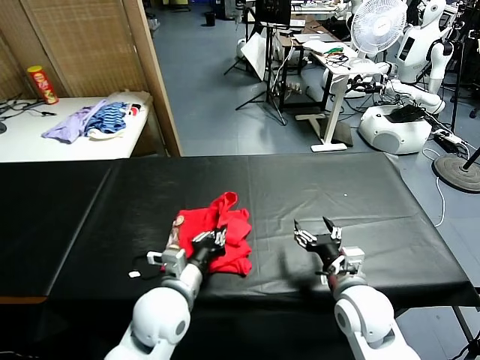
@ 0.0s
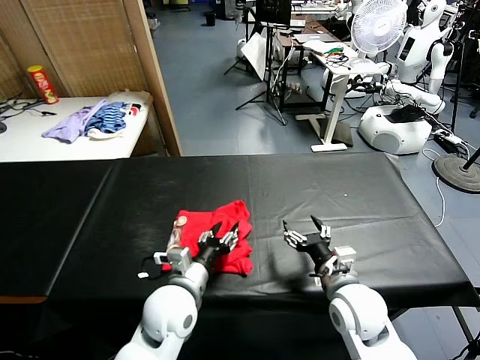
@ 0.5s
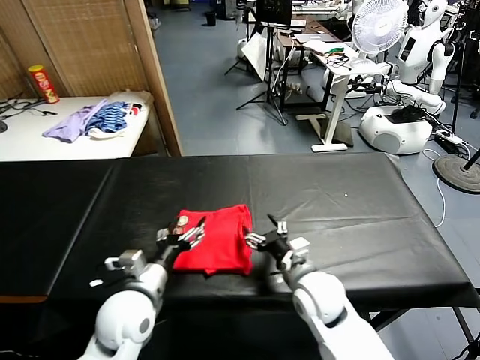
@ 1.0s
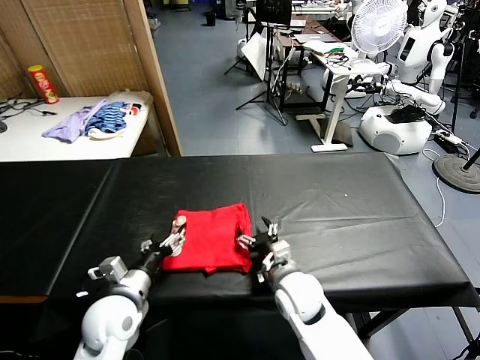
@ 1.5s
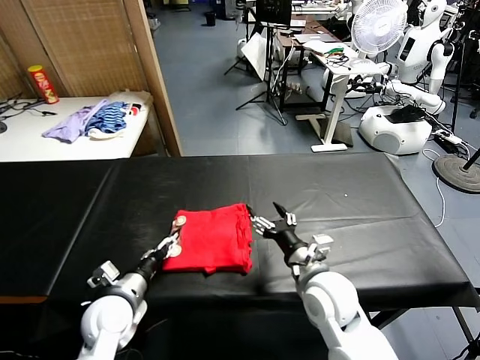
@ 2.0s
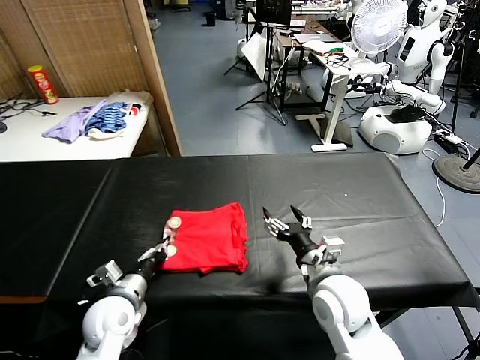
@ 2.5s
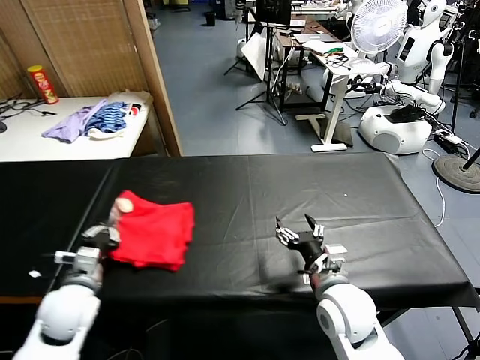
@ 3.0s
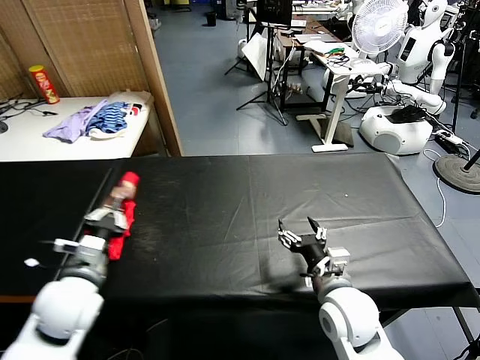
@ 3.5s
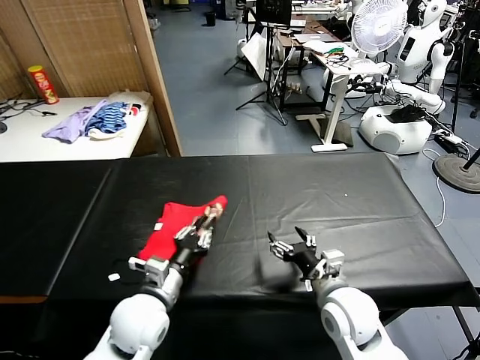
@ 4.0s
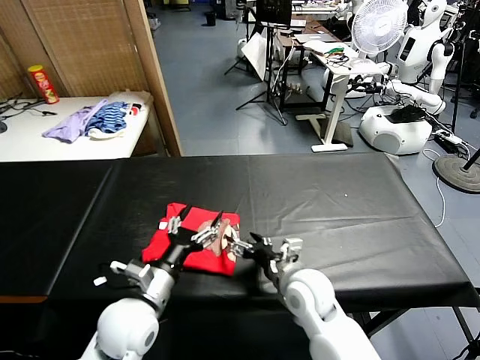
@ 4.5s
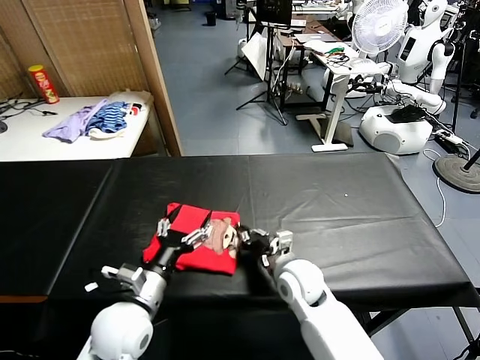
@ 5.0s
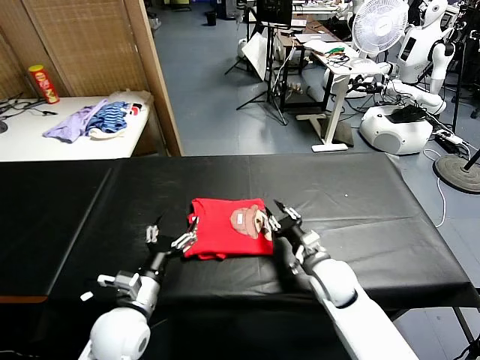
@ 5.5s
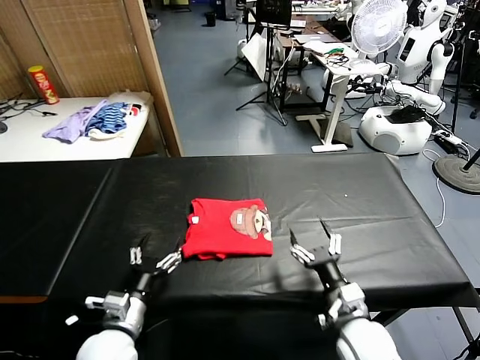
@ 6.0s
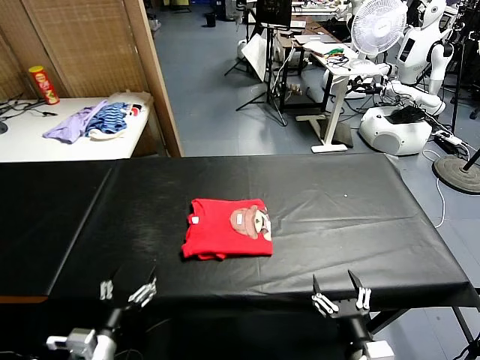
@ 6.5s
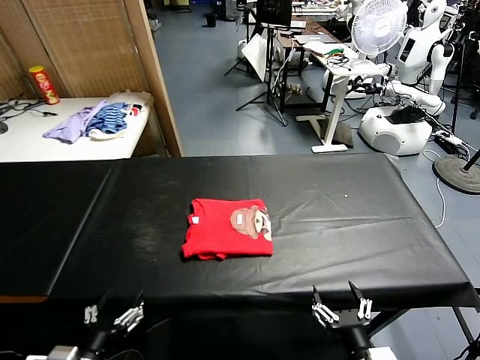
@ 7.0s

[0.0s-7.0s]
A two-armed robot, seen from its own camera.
Task of the whole recording: fold and organize the clothes.
Step, 1.0s to 4.0s: Flip the folded clothes over with left gripper.
Step, 4.5s to 5.5s: Drag the clothes to the center of the table.
0.0s to 2.0s: The left gripper goes about 15 cm to the left and downward, and opens its fingers; the right gripper shifts approximately 5 cm to the left.
2.0s to 3.5s: The left gripper travels upward by some 10 cm, and closes its fingers.
3.5s to 5.0s: The right gripper goes about 15 cm forward, to the left and downward, and closes its fingers, while the left gripper shifts about 10 cm to the right, and opens its fingers.
5.0s to 7.0s: The left gripper heads backward and to the left, covering roughly 15 cm. Meanwhile the right gripper shifts roughly 25 cm backward, and opens up.

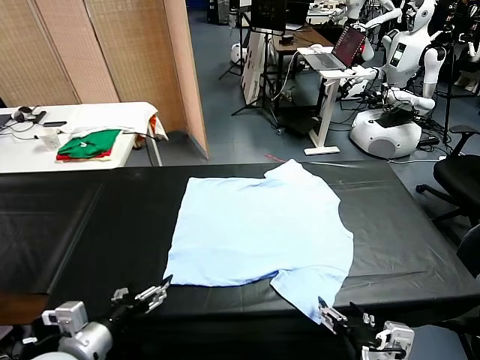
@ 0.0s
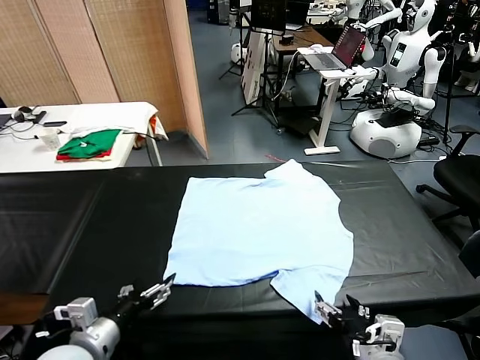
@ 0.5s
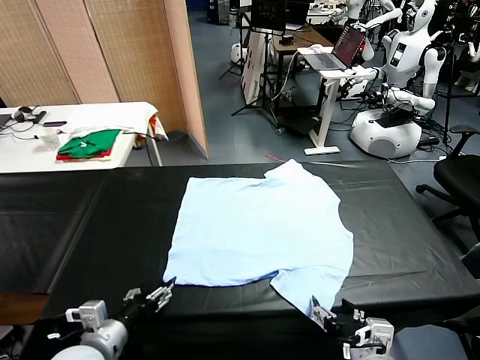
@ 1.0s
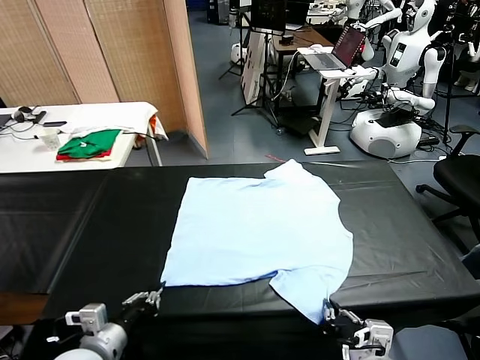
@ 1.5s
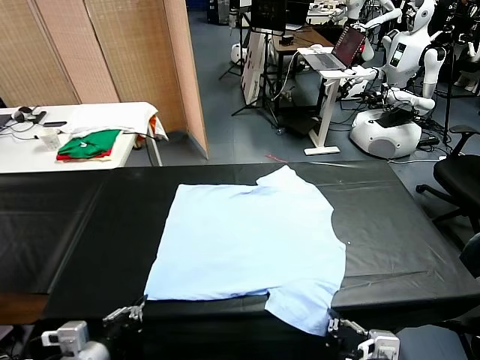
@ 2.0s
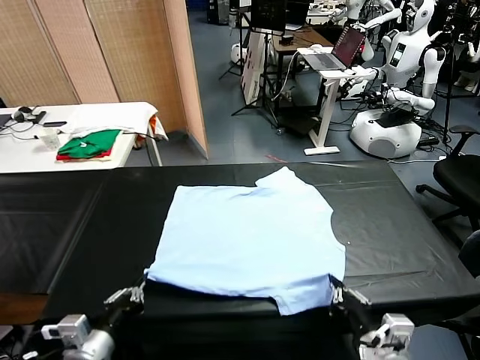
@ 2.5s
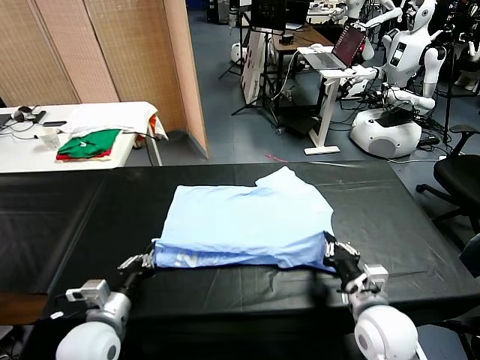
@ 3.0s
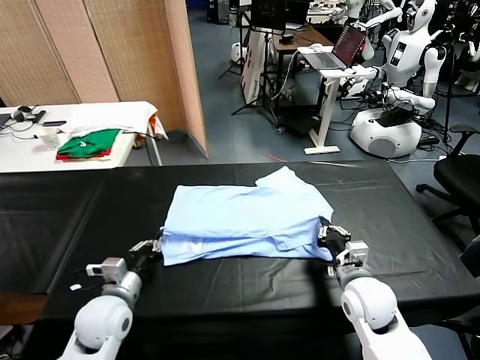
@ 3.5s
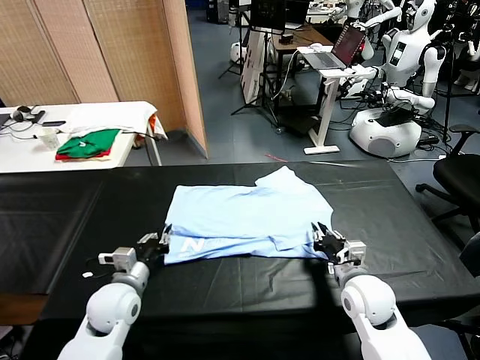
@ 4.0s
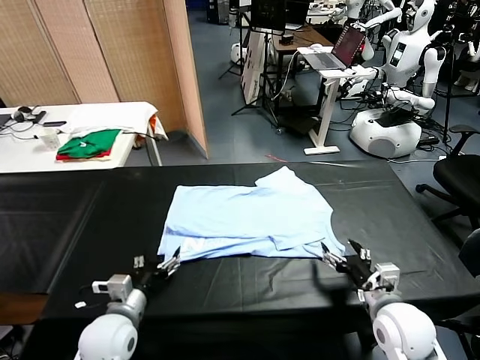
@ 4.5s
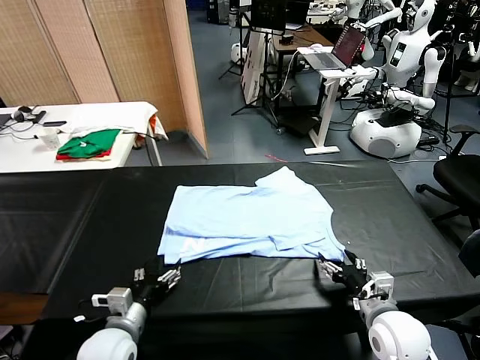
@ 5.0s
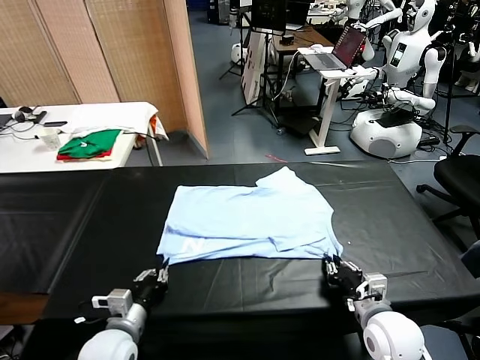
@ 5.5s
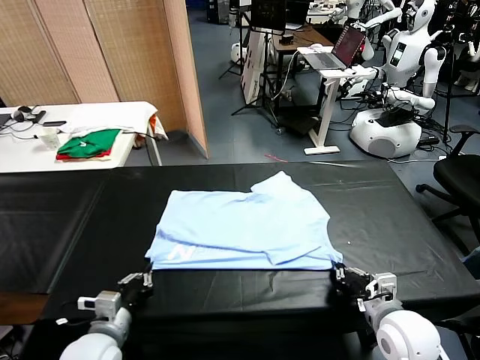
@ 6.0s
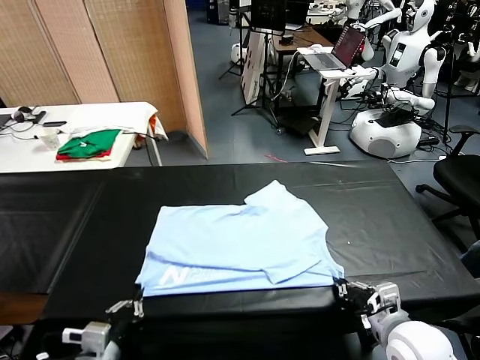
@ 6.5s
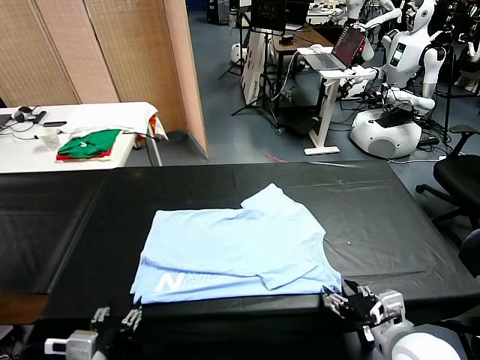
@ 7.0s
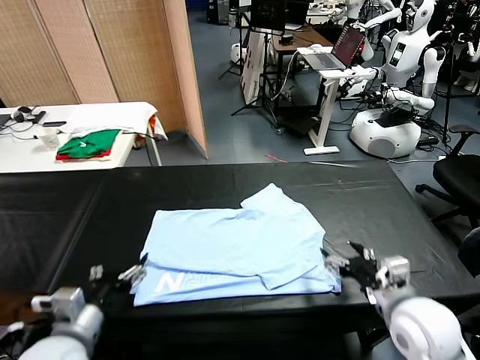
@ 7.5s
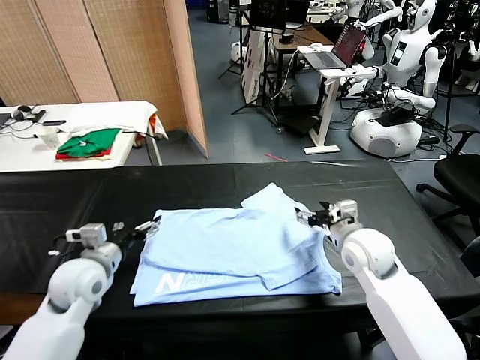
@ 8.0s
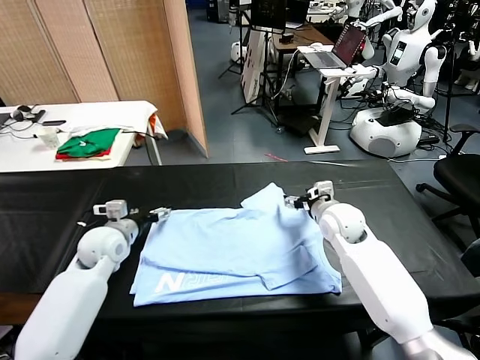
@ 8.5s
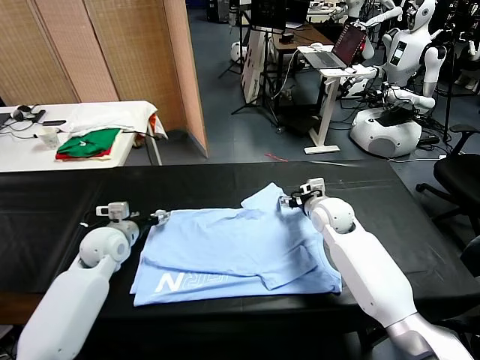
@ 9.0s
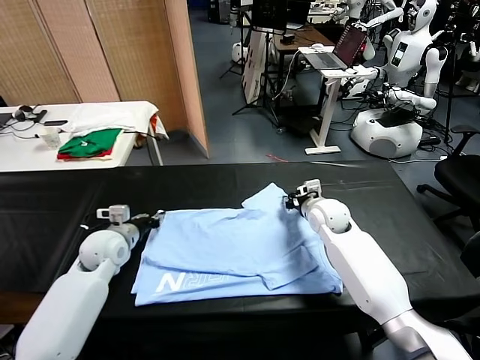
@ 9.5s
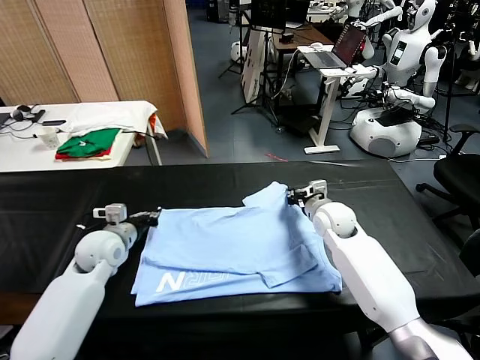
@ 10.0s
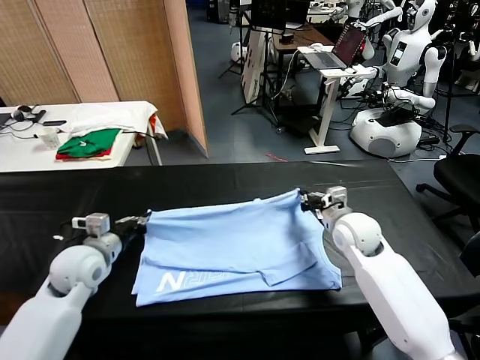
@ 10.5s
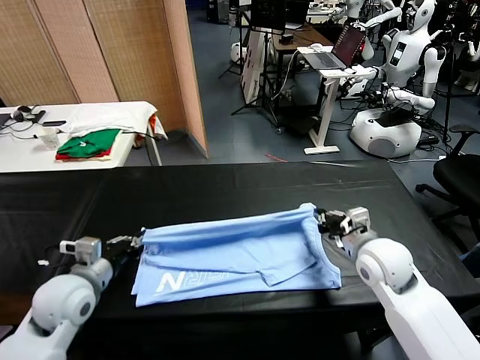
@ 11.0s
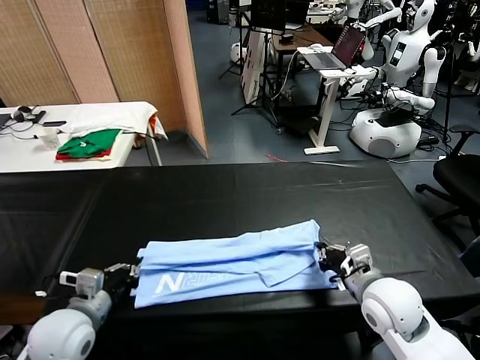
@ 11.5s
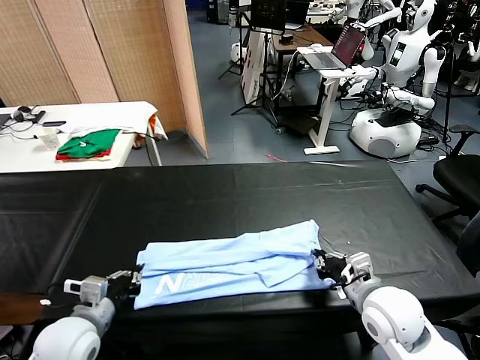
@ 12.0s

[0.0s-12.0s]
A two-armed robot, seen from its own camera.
Task of the whole recording: fold and organize the clothes.
Step, 0.0s to 1.5s: use both grippers simultaneously to clamp the lower edge of the clothing fabric.
Step, 2.0s to 4.0s: use both grippers to drag the lower edge of the fabric forward and fold it over the upper edge.
Step, 4.5s to 7.0s: Drag the clothes downward with both gripper.
Step, 7.5s to 9.5s: use both grippers simultaneously to clamp the upper edge of the clothing fabric.
2.0s to 4.0s: The two grippers go approximately 15 cm forward. The left gripper opens its fingers, while the right gripper opens its fingers.
4.0s to 6.0s: The right gripper moves backward, about 5 cm, and closes its fingers; the left gripper travels backward by approximately 10 cm, and closes up.
6.0s to 8.0s: Both grippers move forward, approximately 15 cm. The left gripper opens up; the right gripper opens up.
8.0s to 10.0s: Both grippers travel together forward, some 5 cm. The left gripper closes up, while the right gripper closes.
10.0s to 12.0s: Both grippers move backward, about 20 cm. The right gripper opens its fingers.

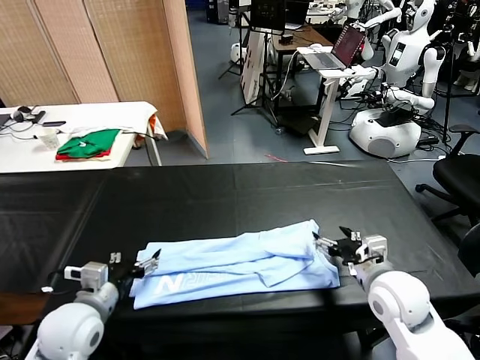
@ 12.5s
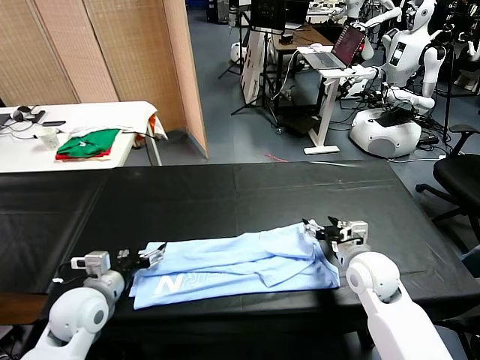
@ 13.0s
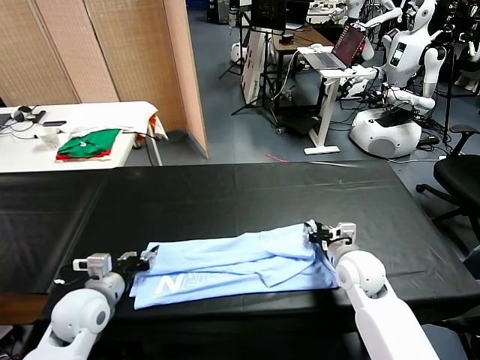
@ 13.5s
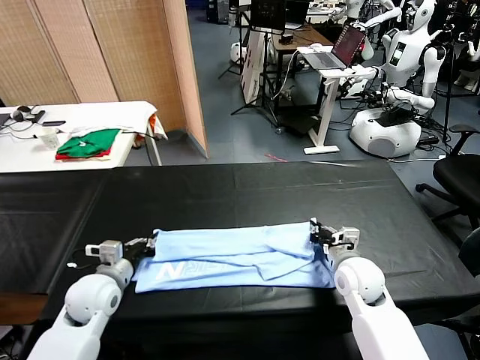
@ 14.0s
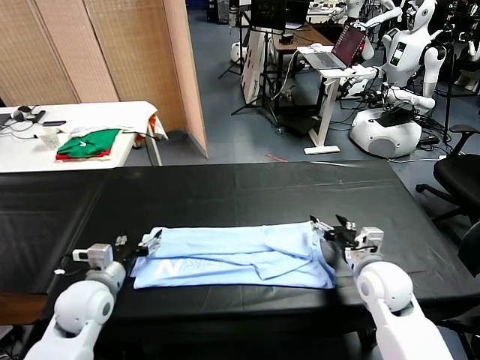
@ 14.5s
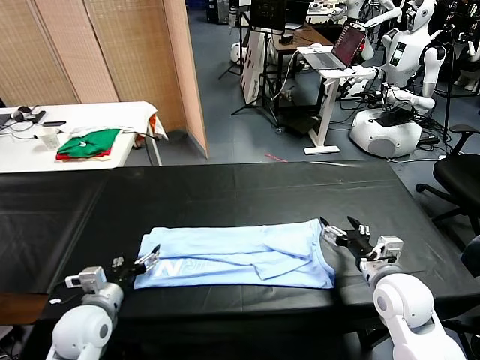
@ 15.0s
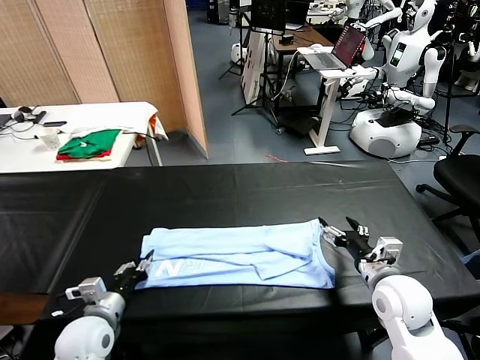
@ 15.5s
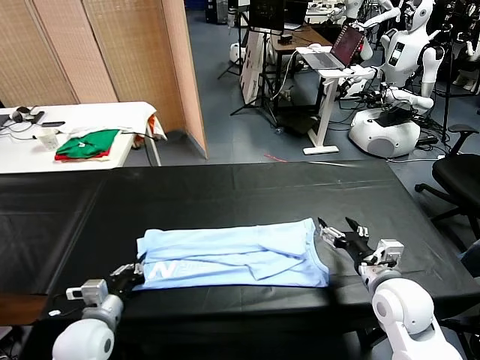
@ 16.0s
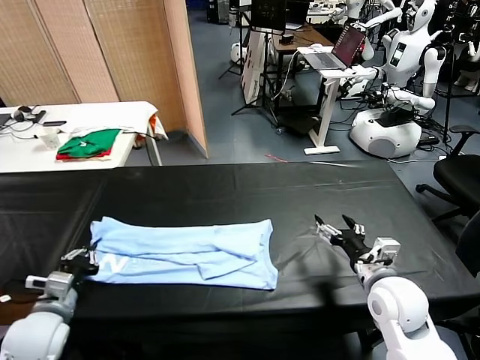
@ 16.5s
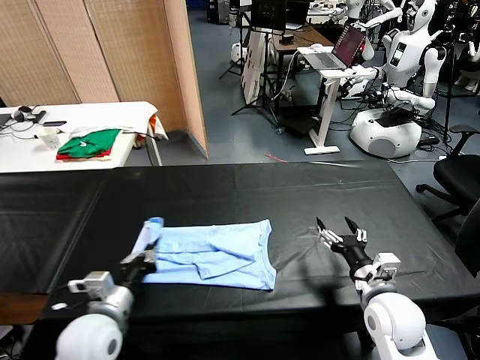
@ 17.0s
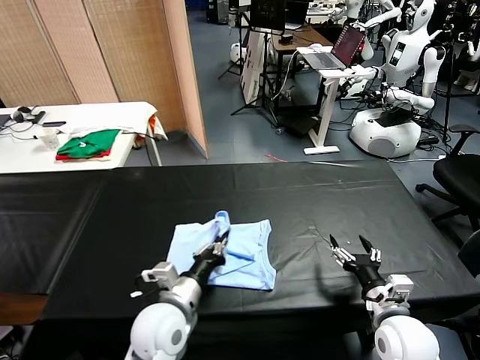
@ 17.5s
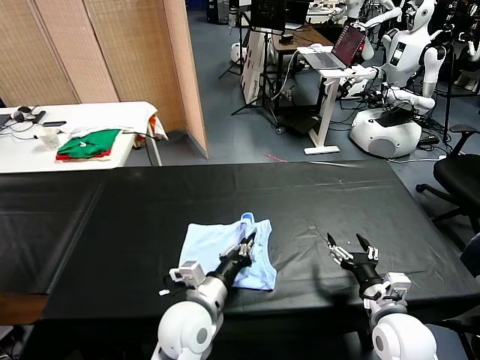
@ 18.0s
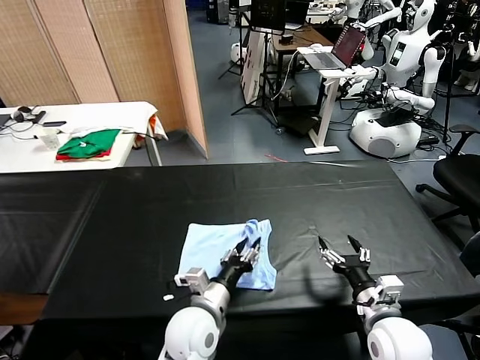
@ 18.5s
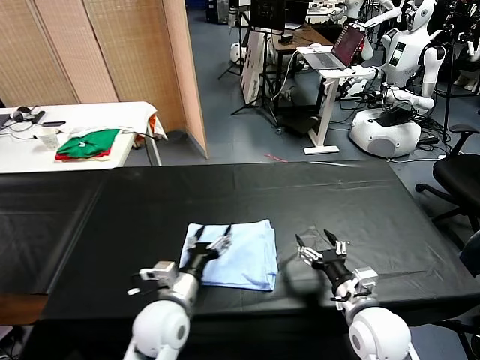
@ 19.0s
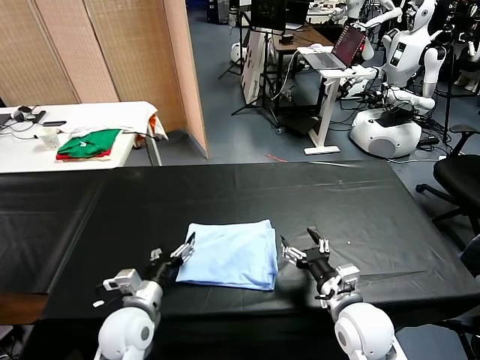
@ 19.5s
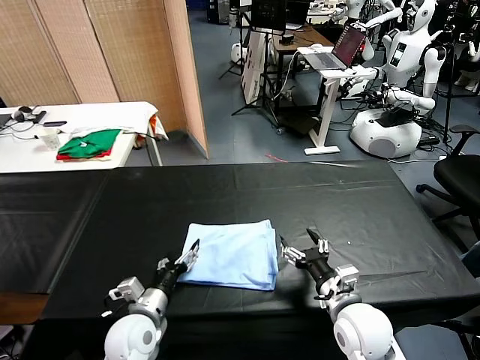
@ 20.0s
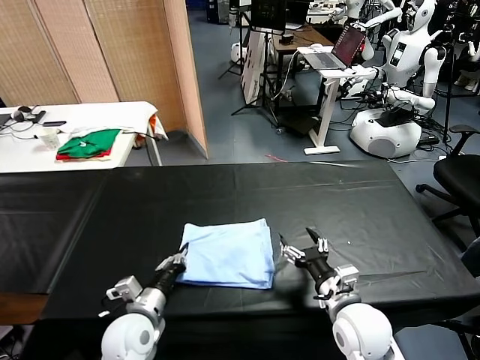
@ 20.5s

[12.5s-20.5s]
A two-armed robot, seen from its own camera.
Task of the whole recording: fold and organize the clothes.
Step, 12.5s to 15.5s: use the left gripper to clamp the left edge of the fabric.
Step, 16.0s to 18.5s: use the left gripper to drag the left edge of the fabric to the left and folds it over the right edge.
12.5s to 14.5s: The right gripper closes and opens again; the left gripper closes, then opens again.
14.5s to 16.5s: The left gripper is displaced to the left and backward by some 10 cm, and closes up.
16.5s to 18.5s: The left gripper shifts about 30 cm to the right, and opens, while the right gripper goes approximately 5 cm backward.
18.5s to 20.5s: The left gripper shifts roughly 15 cm to the left, and closes up. Meanwhile the right gripper shifts about 5 cm to the left.
